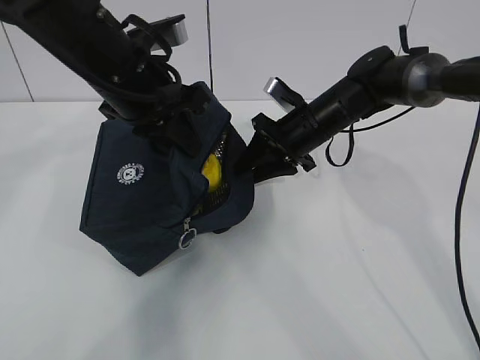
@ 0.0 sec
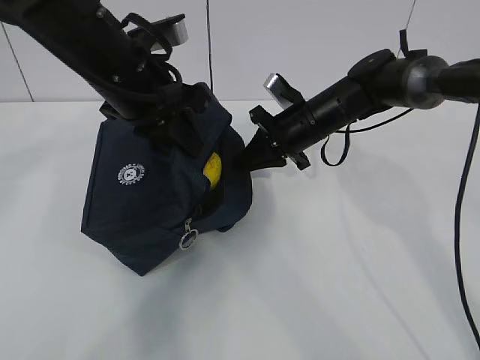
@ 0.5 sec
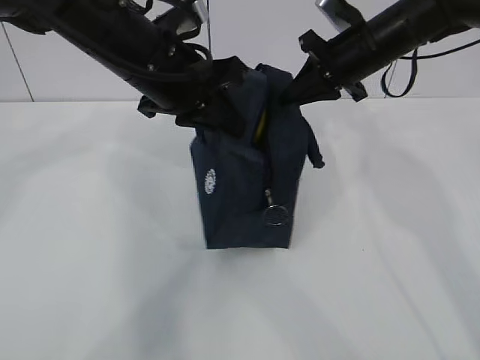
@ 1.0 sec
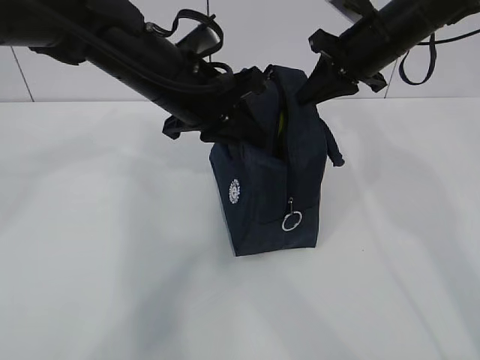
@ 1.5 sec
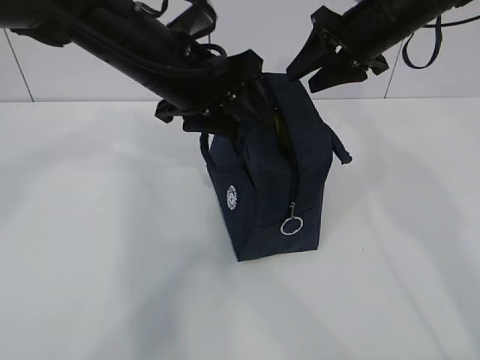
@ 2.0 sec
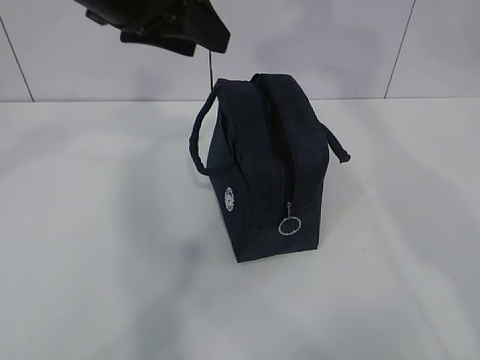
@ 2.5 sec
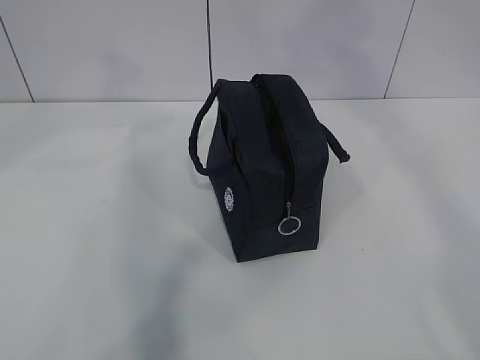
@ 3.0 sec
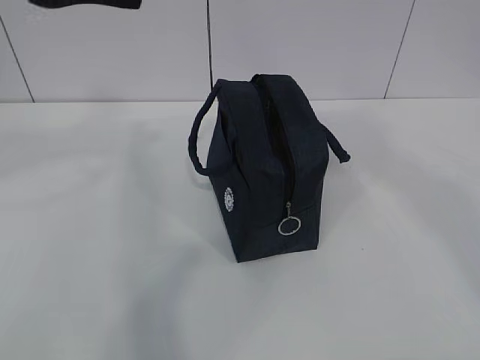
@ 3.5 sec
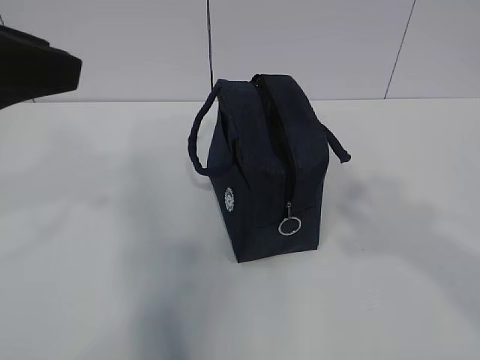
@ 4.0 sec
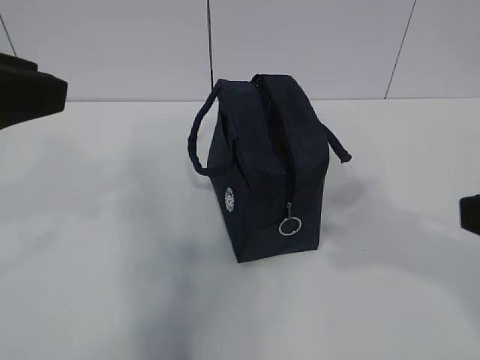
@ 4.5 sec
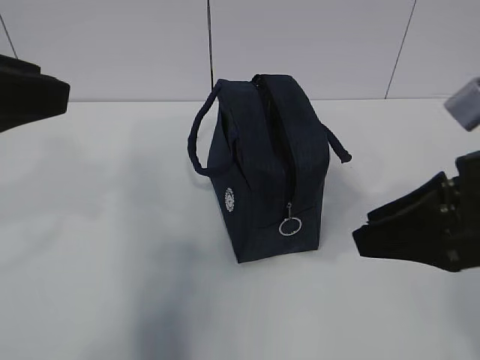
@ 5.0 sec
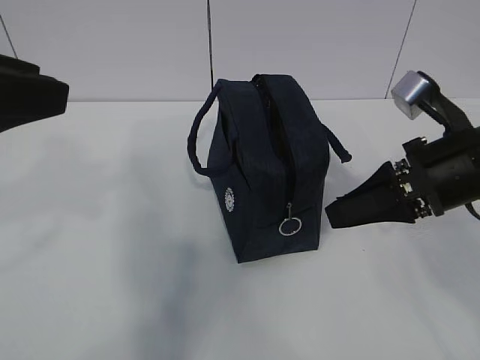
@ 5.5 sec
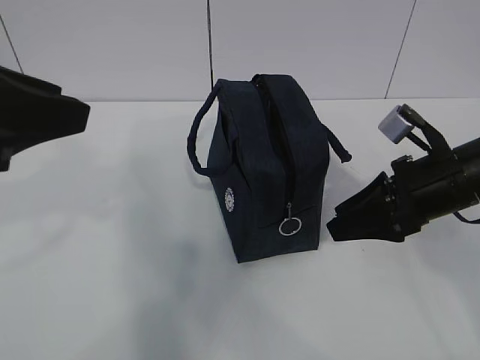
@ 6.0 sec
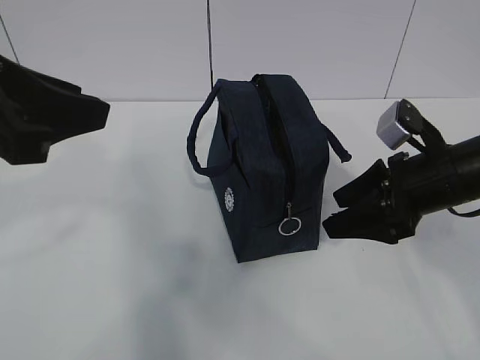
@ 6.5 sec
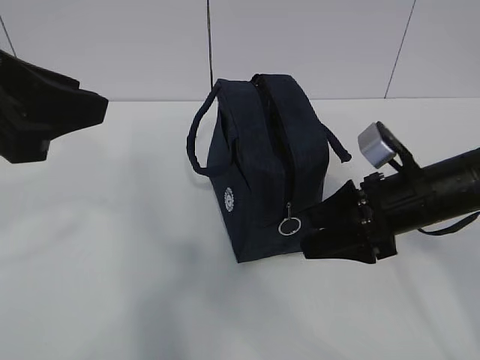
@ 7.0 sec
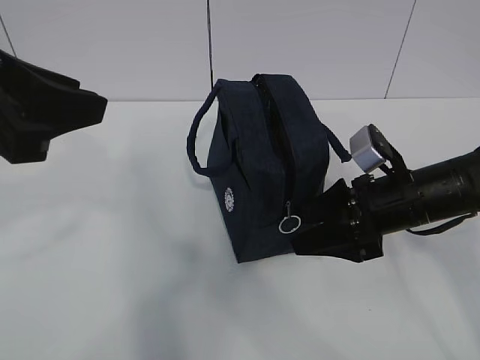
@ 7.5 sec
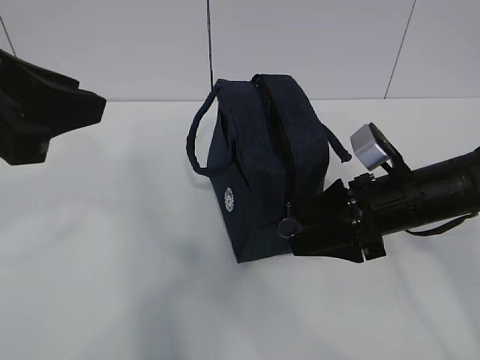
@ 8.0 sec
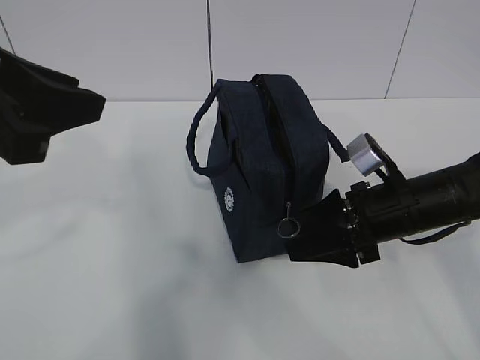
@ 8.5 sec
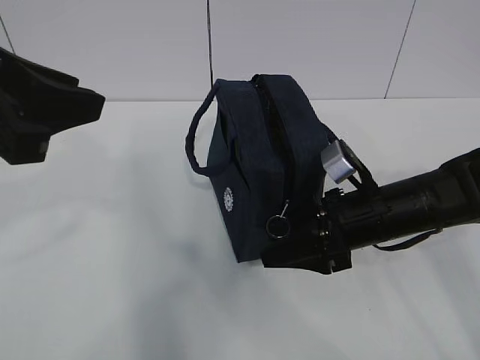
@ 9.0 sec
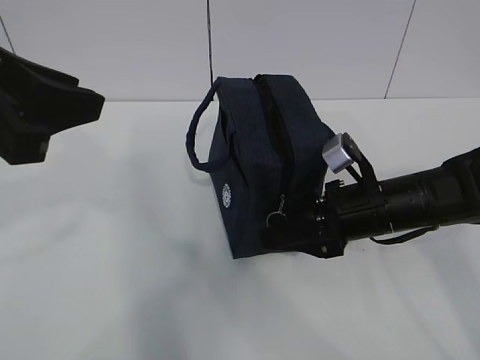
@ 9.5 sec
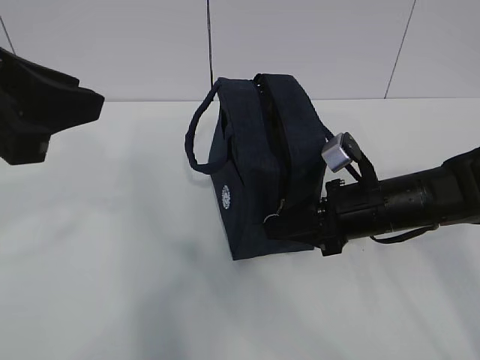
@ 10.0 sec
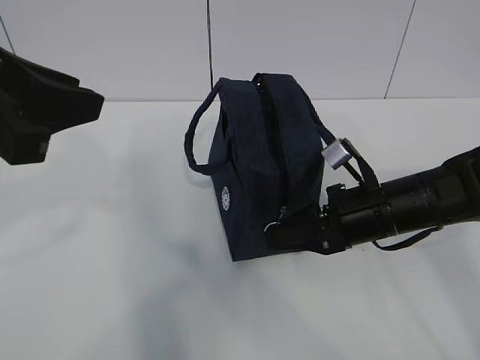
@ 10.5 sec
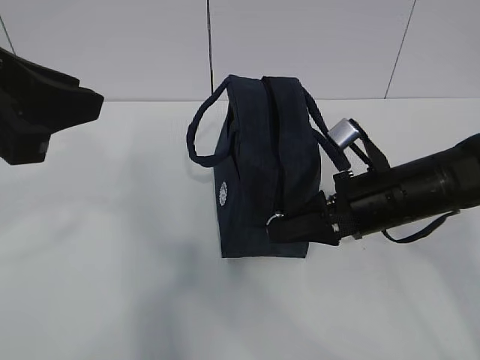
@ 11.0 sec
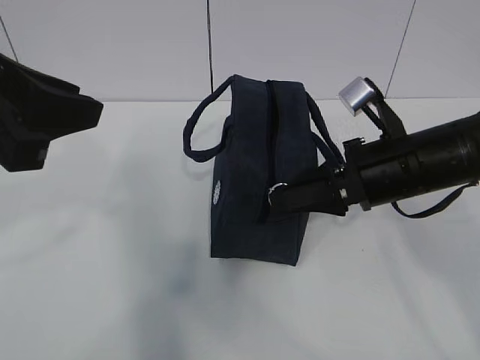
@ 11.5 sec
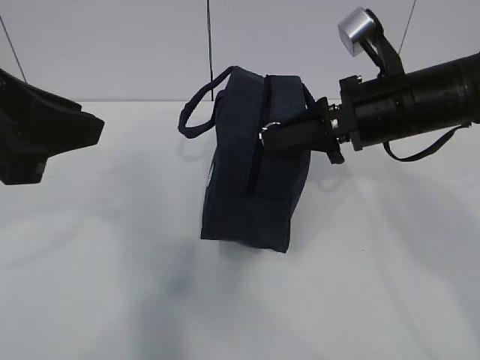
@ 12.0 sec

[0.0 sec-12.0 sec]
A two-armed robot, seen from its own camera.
0.0 sec to 2.0 sec: The left gripper opens. Meanwhile the right gripper goes some 15 cm upward, and closes, then opens again.
2.0 sec to 4.0 sec: The right gripper travels backward by roughly 35 cm. The left gripper is displaced backward, to the left and upward by approximately 25 cm.
4.0 sec to 6.0 sec: The right gripper moves forward and downward, approximately 25 cm.
6.0 sec to 8.0 sec: There are only small adjustments of the grippers.
8.0 sec to 10.0 sec: The right gripper closes its fingers.
10.0 sec to 12.0 sec: The right gripper is displaced upward by approximately 10 cm.

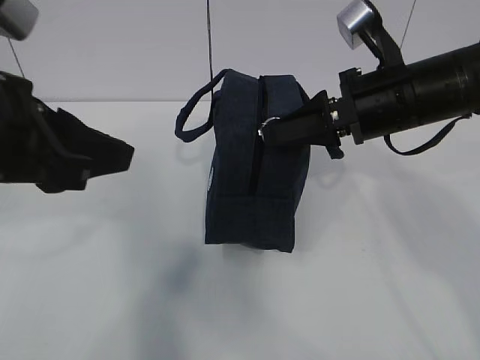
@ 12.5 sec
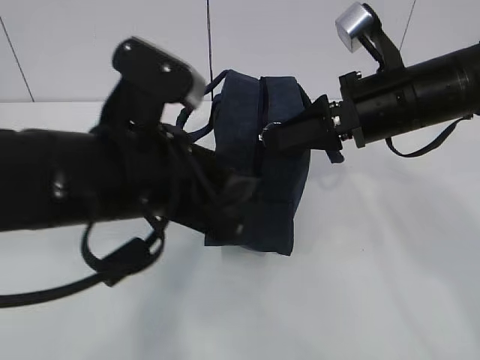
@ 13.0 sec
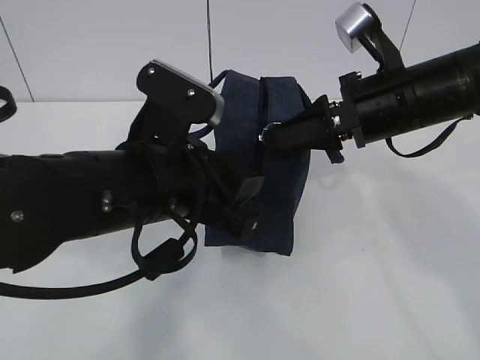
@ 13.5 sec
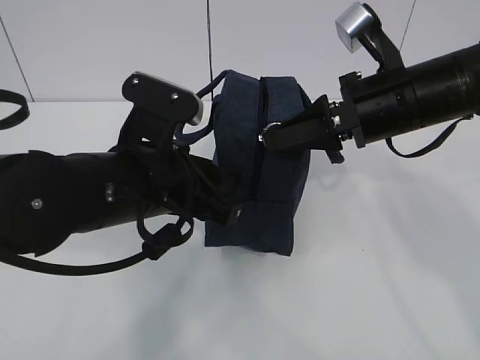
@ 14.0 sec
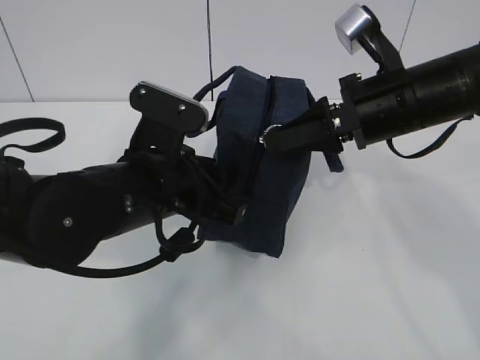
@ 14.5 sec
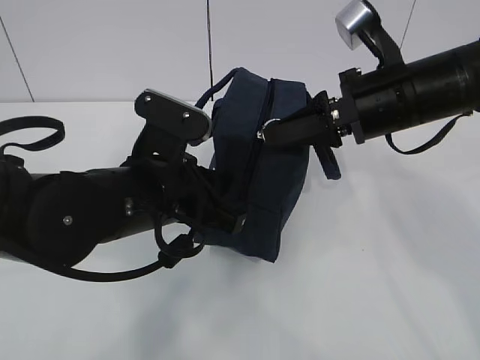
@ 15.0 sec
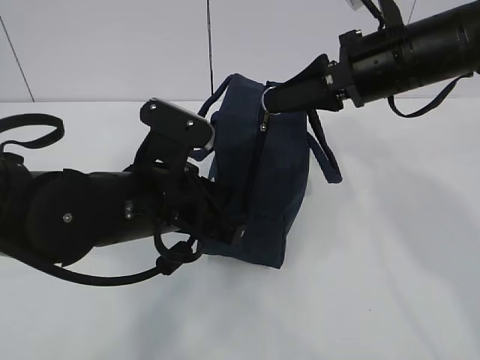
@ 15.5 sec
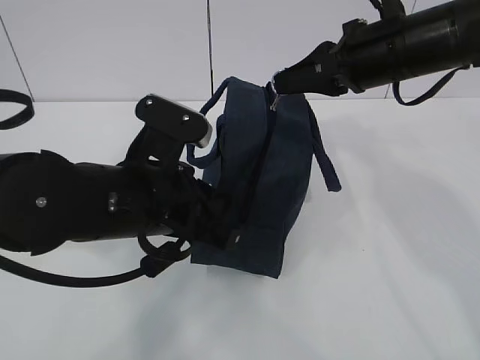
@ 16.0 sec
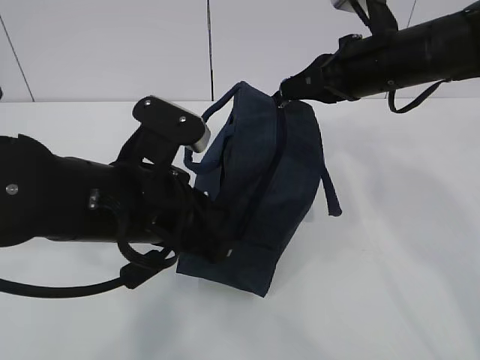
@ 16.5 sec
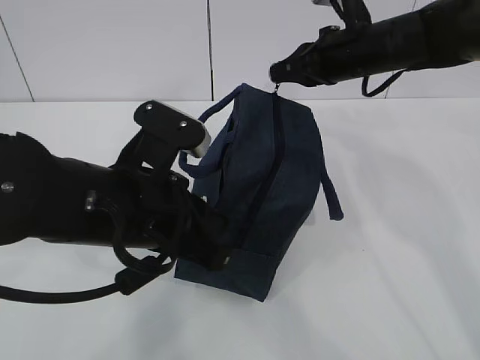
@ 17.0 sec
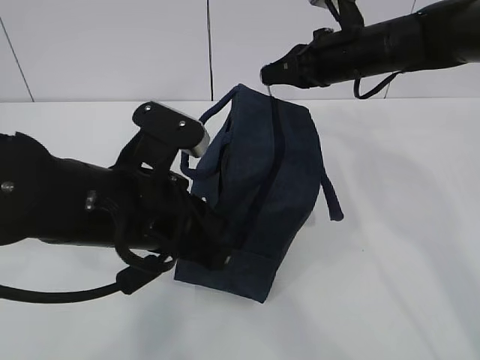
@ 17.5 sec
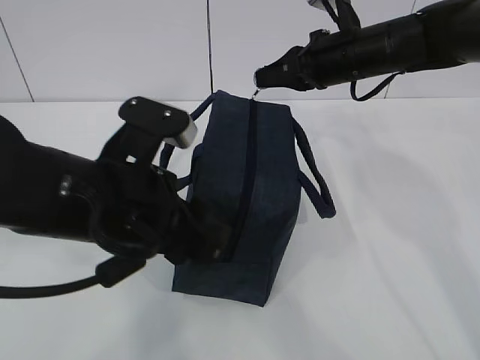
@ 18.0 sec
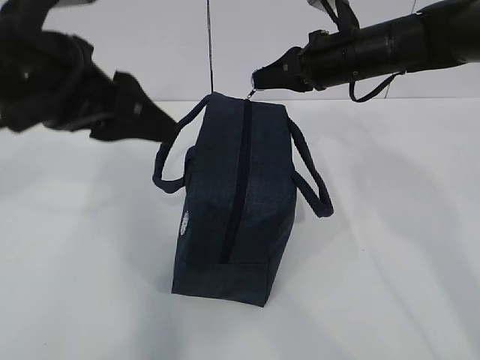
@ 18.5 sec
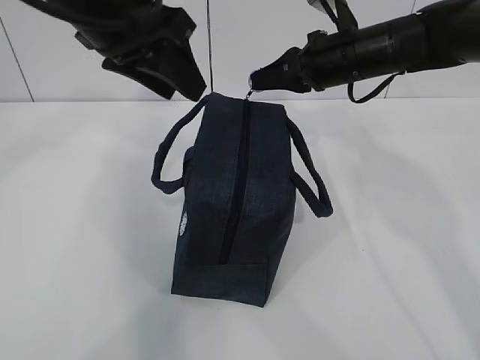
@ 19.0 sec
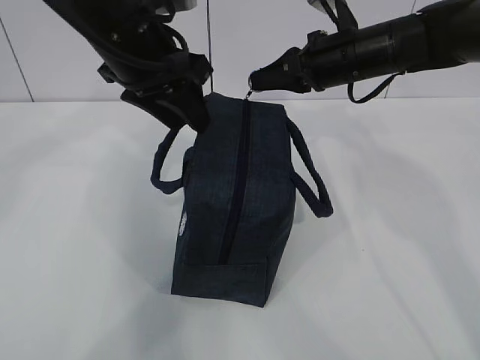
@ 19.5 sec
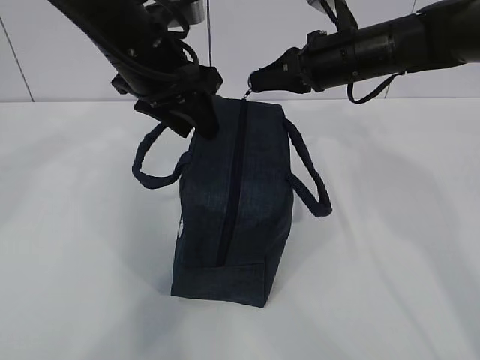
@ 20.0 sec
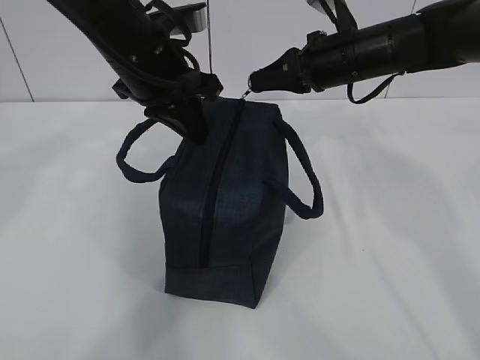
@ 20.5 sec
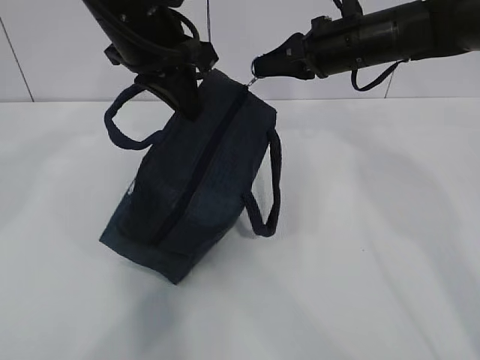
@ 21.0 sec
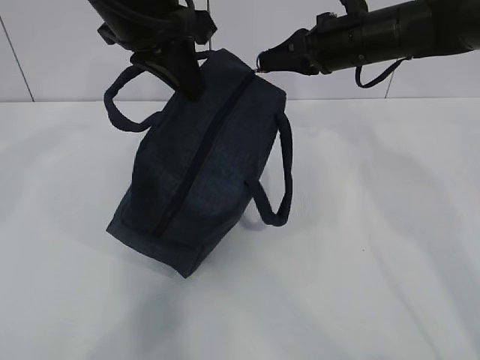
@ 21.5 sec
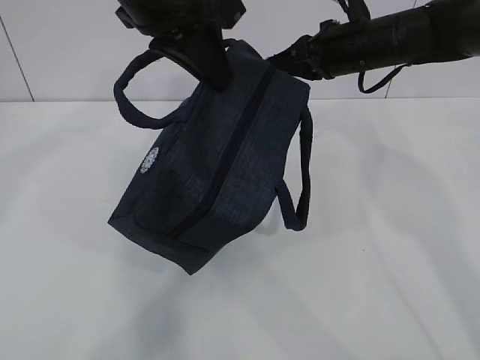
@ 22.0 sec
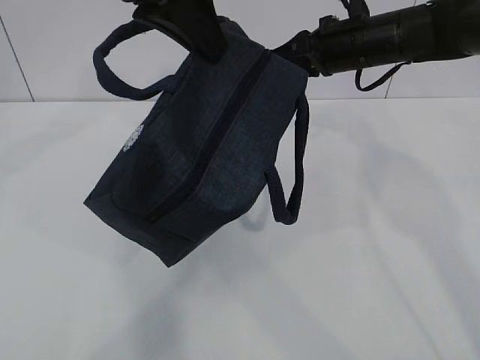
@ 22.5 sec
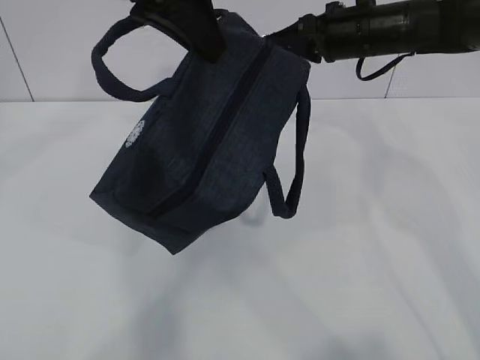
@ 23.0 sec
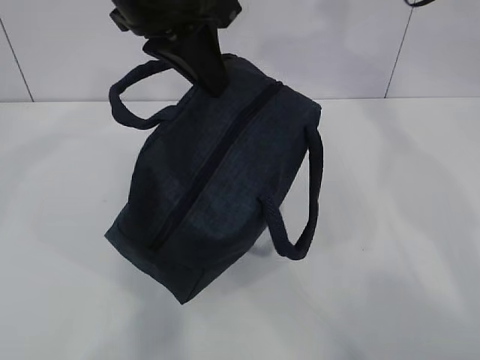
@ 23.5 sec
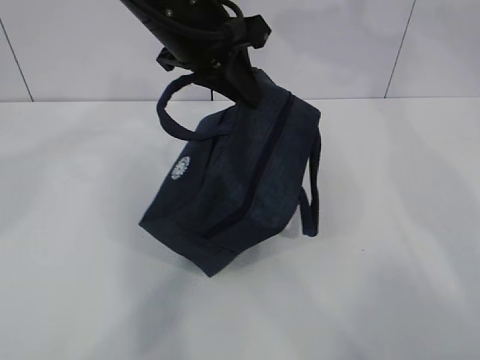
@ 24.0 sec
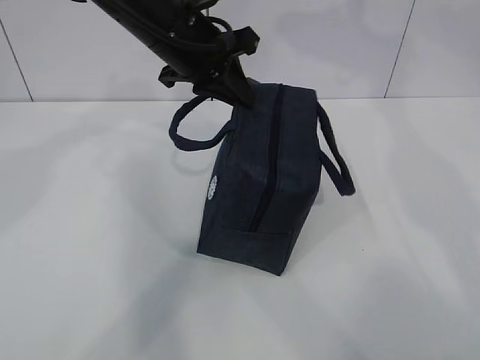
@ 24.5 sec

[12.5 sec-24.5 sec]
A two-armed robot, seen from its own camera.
12.5 sec to 14.5 sec: The left gripper goes approximately 15 cm downward, to the right and forward.
14.5 sec to 16.5 sec: The right gripper is displaced forward by approximately 5 cm; the left gripper closes up.
16.5 sec to 18.5 sec: The left gripper travels upward and to the left by about 15 cm, and opens. The right gripper shifts some 5 cm forward.
18.5 sec to 20.5 sec: The left gripper goes some 15 cm forward and to the right, and closes its fingers.
20.5 sec to 22.5 sec: The left gripper shifts approximately 15 cm upward and backward.
22.5 sec to 24.5 sec: The left gripper goes approximately 15 cm downward and forward. Meanwhile the right gripper is displaced upward and to the right by approximately 15 cm, and opens up.

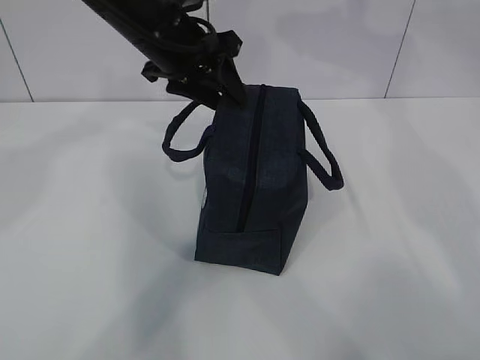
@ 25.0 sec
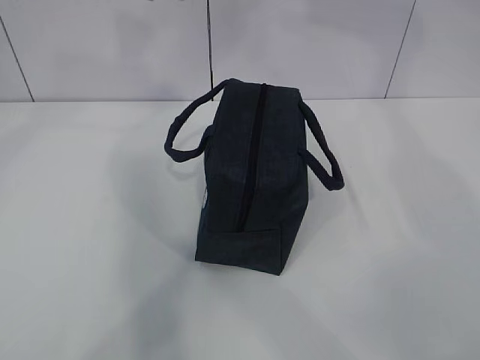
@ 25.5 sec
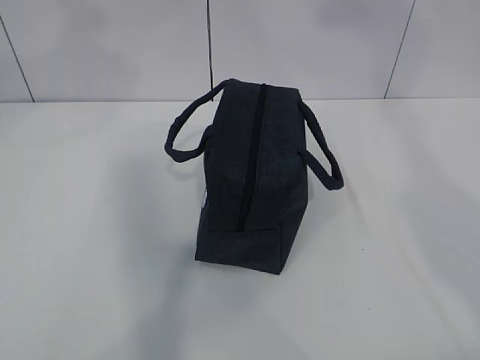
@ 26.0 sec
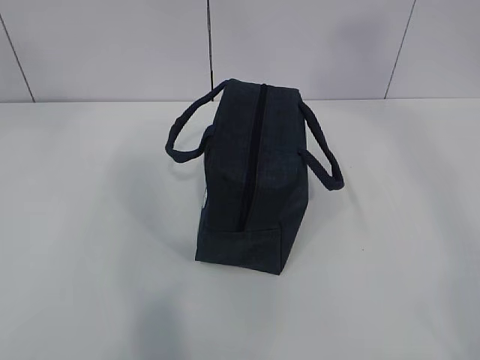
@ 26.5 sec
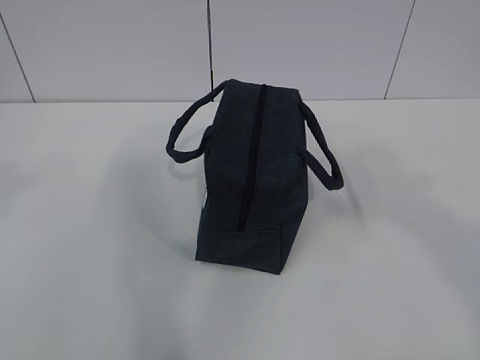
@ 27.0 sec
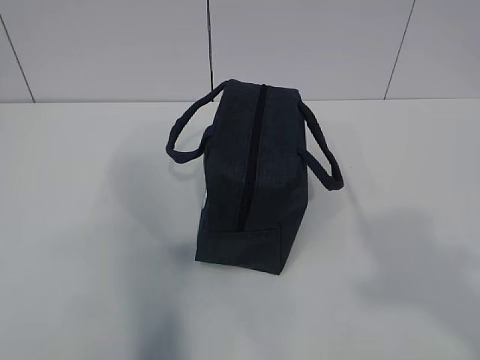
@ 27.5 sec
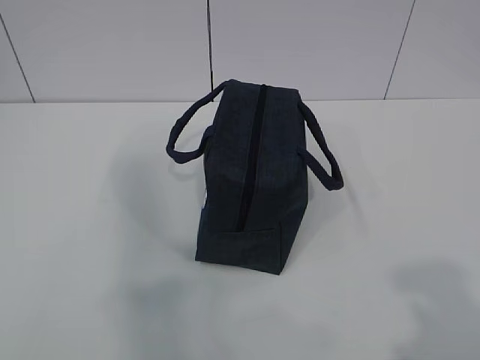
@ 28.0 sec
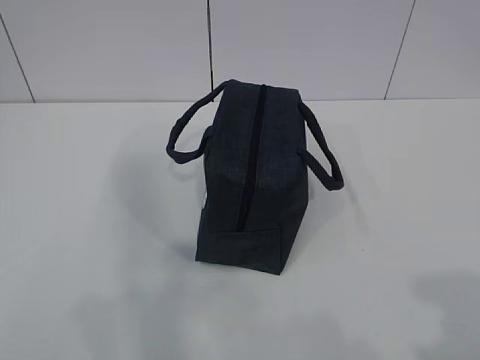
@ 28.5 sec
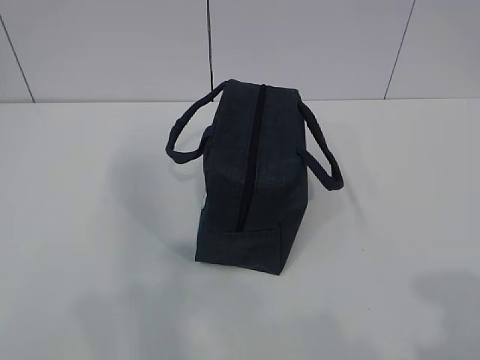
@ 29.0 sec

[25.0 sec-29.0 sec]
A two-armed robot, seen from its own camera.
25.0 sec to 27.0 sec: The right gripper moves backward, some 40 cm. Meanwhile the left gripper heads backward, to the left and upward, covering some 40 cm.
